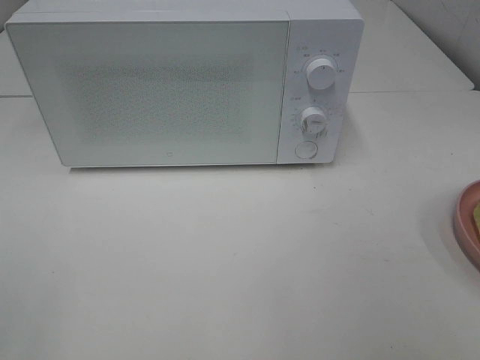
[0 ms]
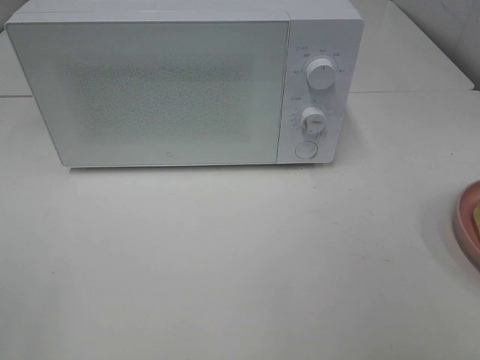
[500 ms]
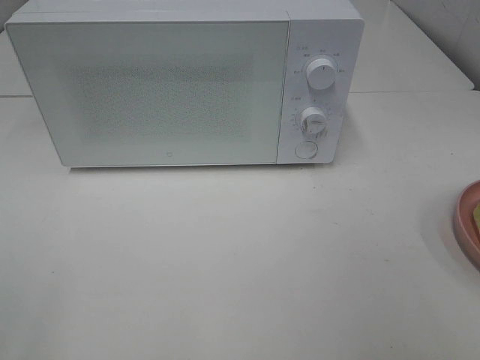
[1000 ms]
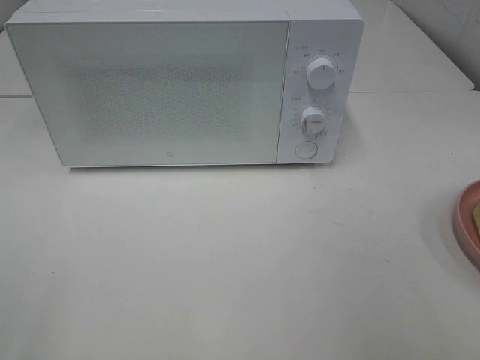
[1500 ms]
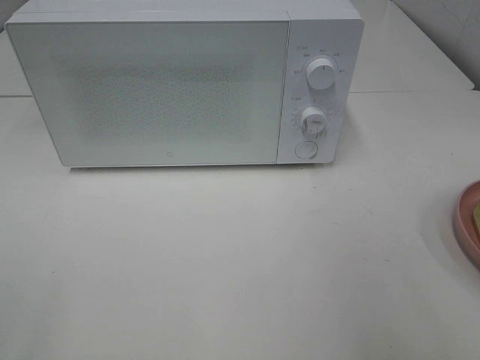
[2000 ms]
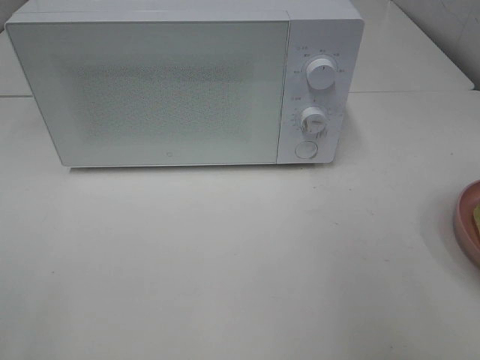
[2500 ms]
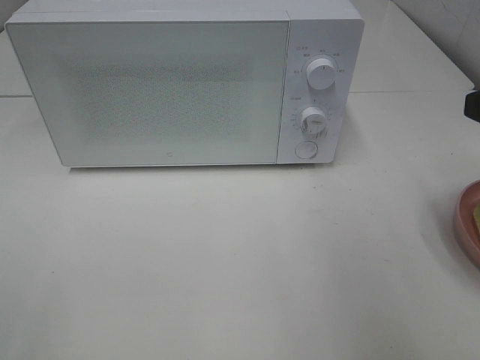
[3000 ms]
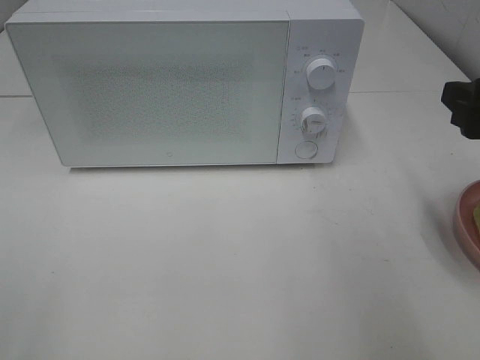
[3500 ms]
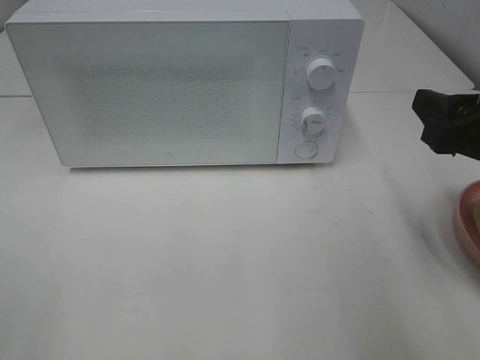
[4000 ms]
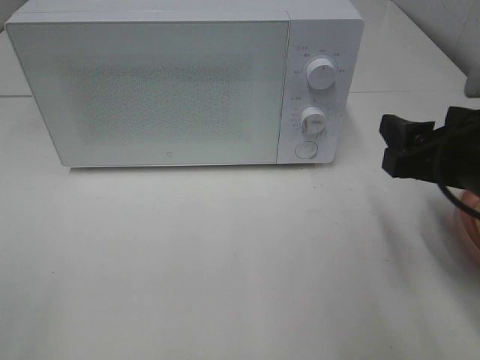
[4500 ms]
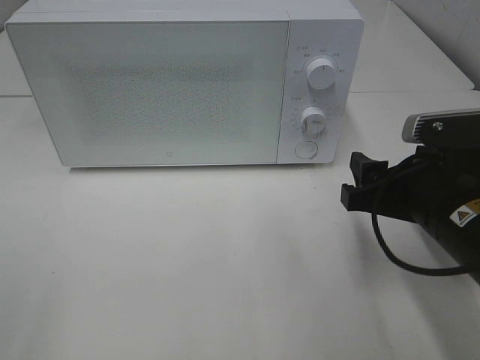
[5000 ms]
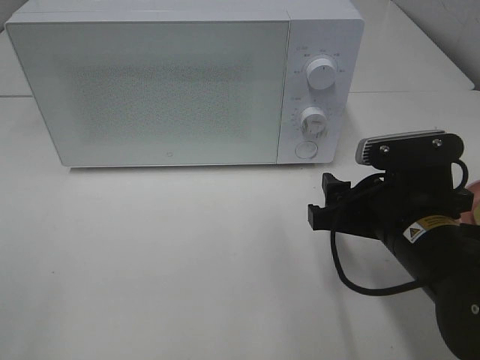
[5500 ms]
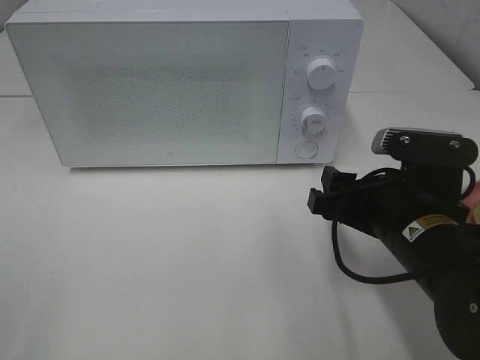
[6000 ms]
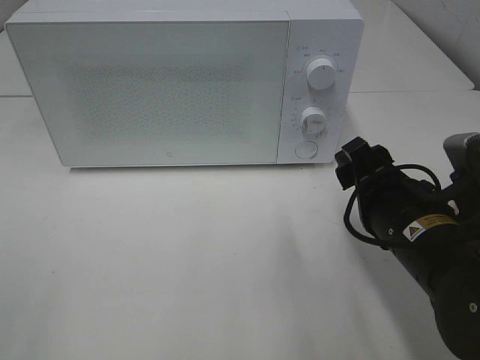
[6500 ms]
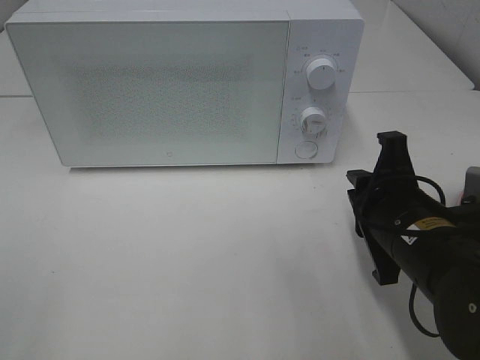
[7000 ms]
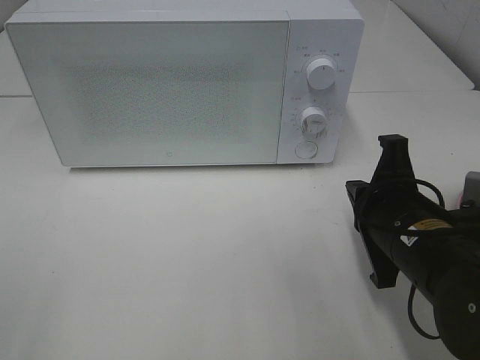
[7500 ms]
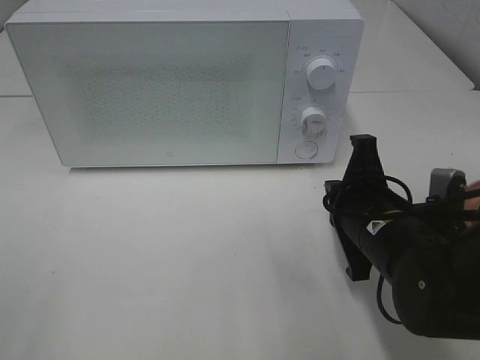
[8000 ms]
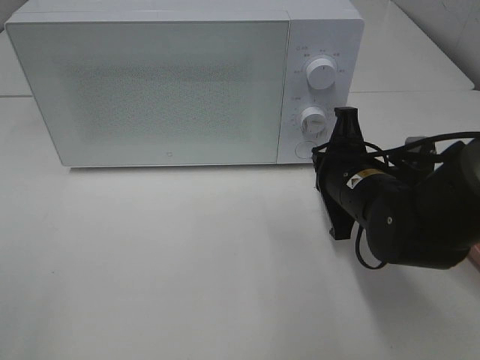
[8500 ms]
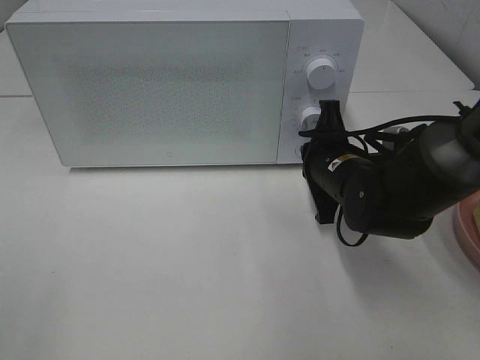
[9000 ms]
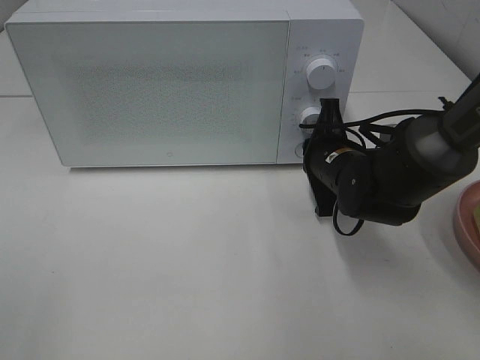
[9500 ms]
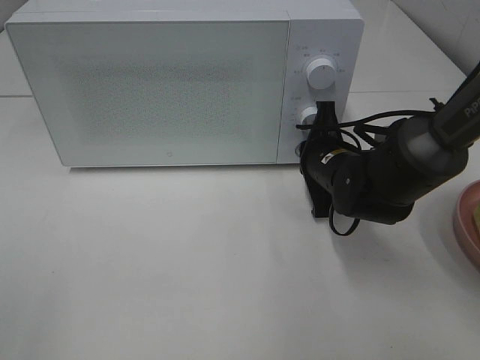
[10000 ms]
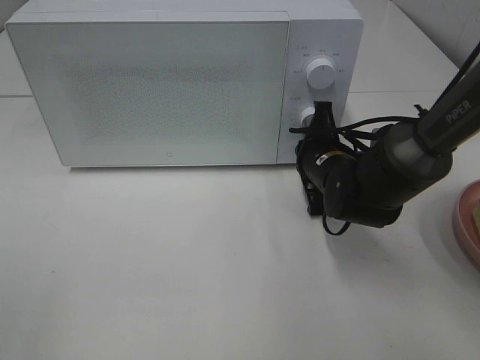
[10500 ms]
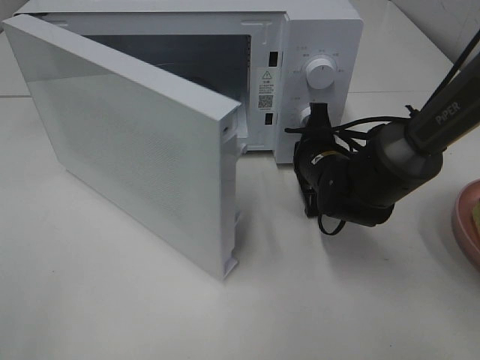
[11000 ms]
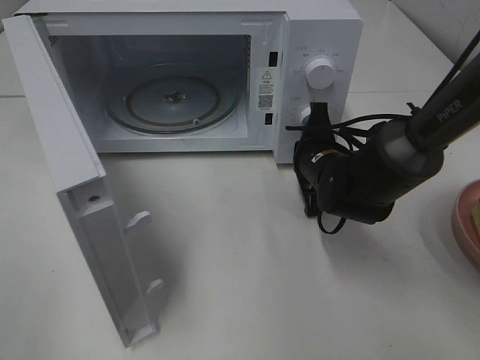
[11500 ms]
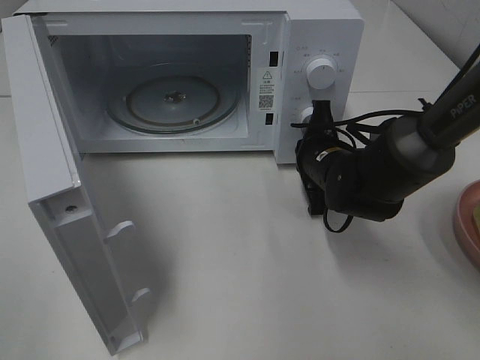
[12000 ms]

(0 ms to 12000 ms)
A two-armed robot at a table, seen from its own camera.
Task of the whole recording: Heat Sandwich.
2000 ms - 4000 ms: The right gripper is displaced forward and downward by approximately 10 cm.
4000 ms - 6000 ms: The right gripper shifts about 10 cm to the left and downward.
6000 ms - 8000 ms: The right gripper closes.
8000 ms - 10000 ms: The right gripper shifts some 15 cm forward.

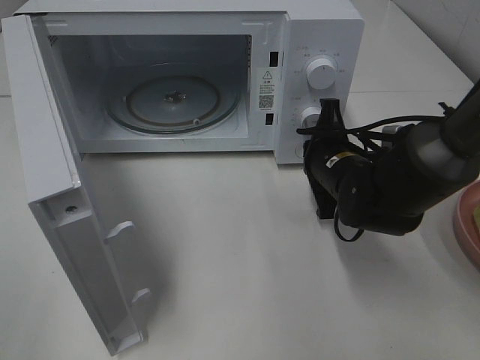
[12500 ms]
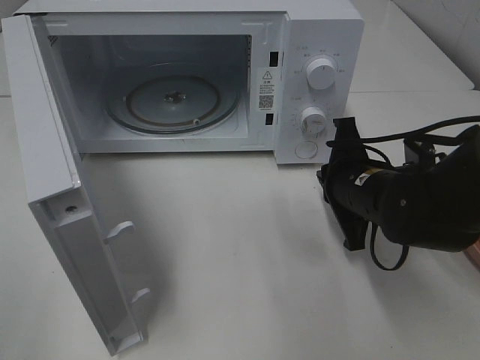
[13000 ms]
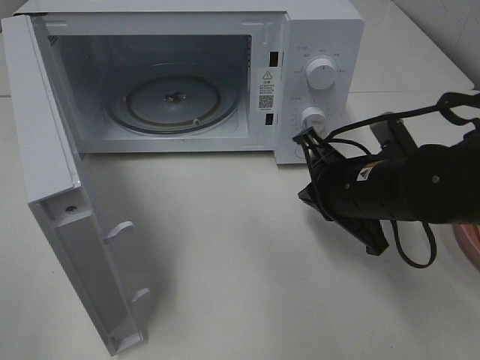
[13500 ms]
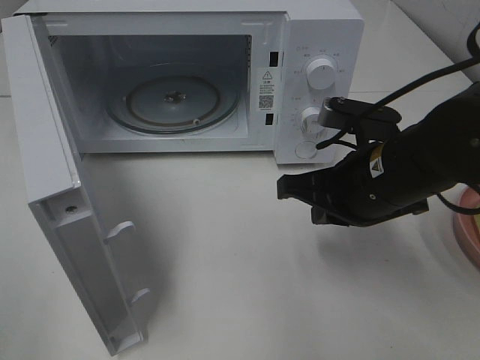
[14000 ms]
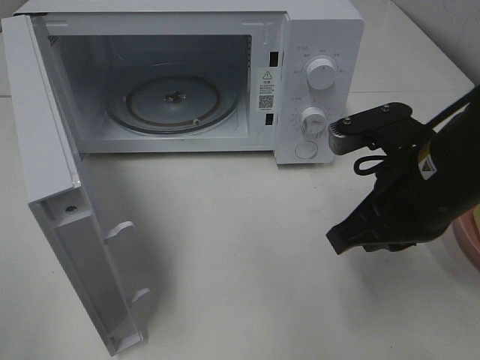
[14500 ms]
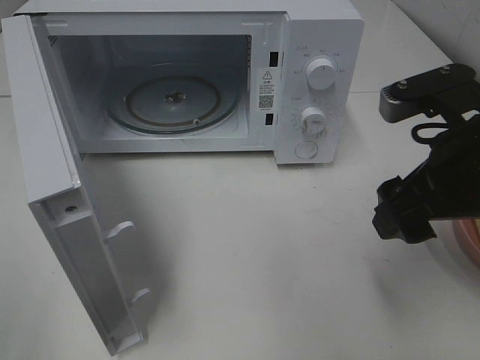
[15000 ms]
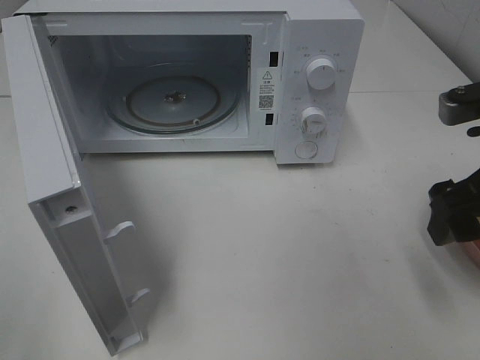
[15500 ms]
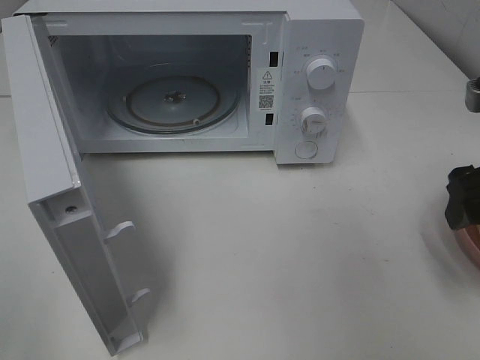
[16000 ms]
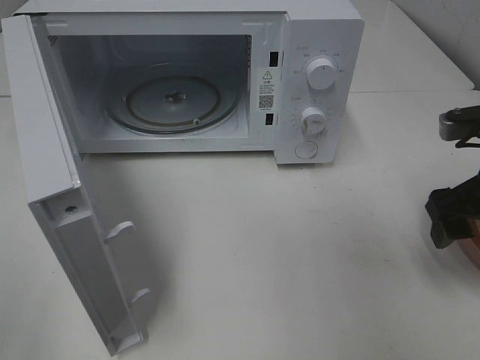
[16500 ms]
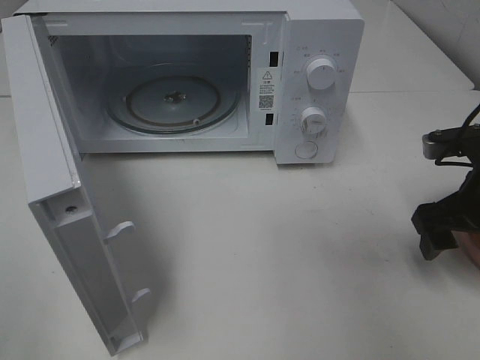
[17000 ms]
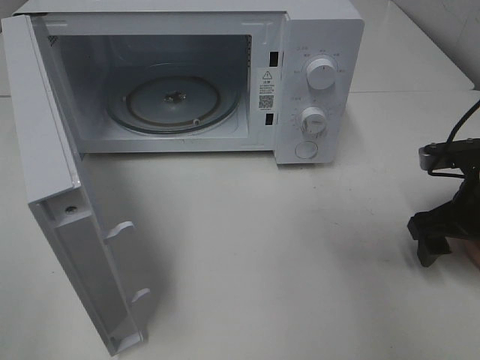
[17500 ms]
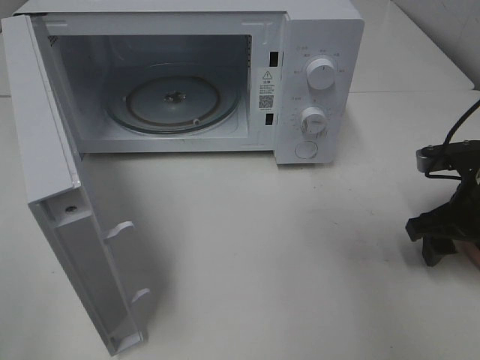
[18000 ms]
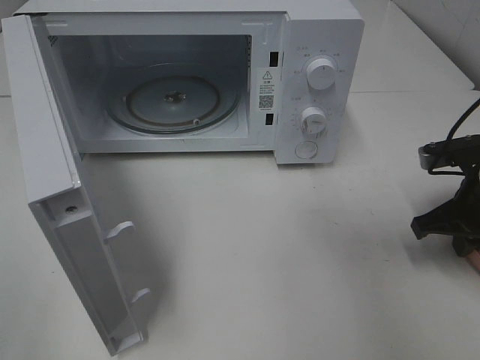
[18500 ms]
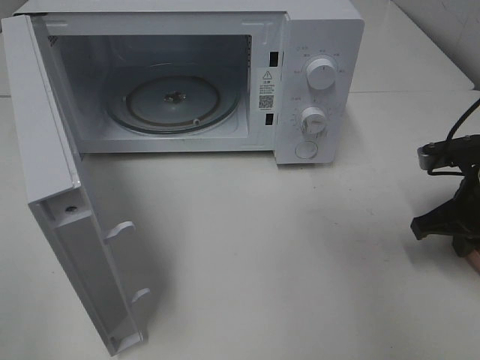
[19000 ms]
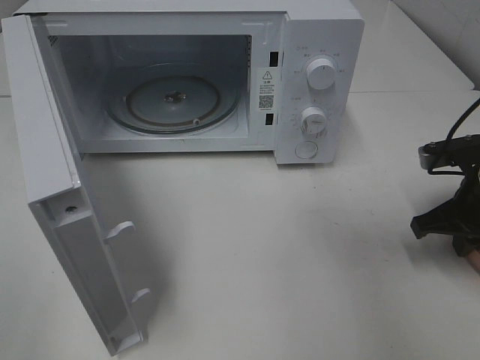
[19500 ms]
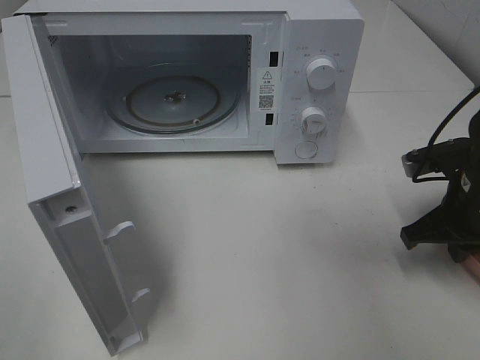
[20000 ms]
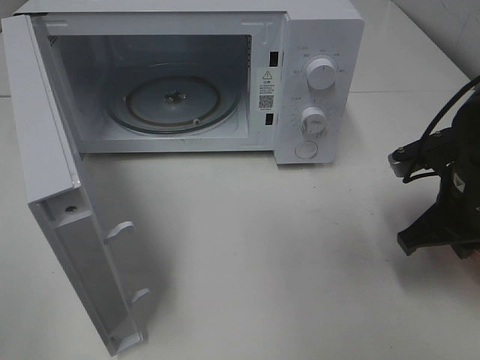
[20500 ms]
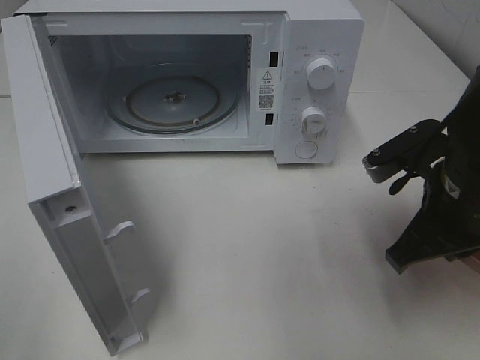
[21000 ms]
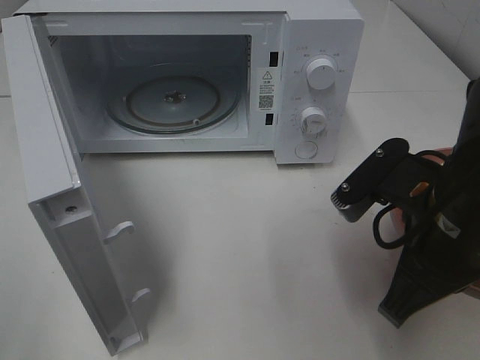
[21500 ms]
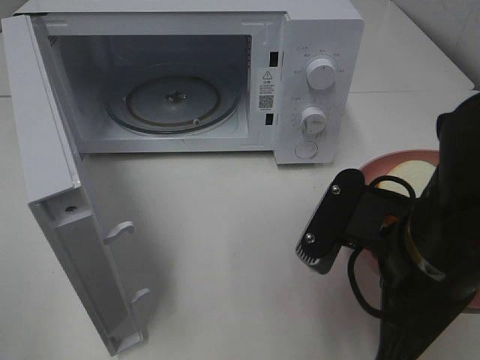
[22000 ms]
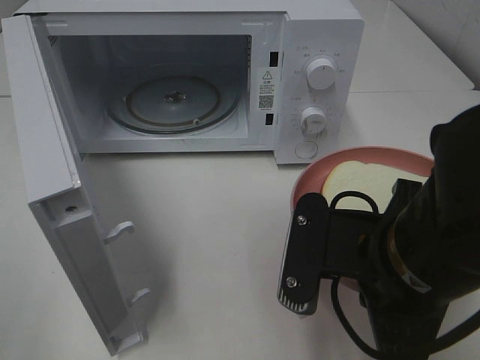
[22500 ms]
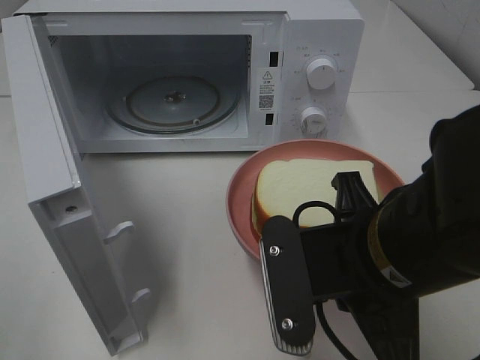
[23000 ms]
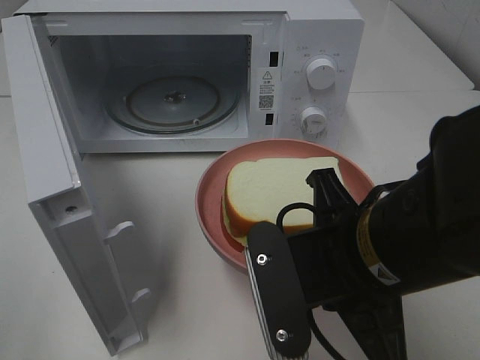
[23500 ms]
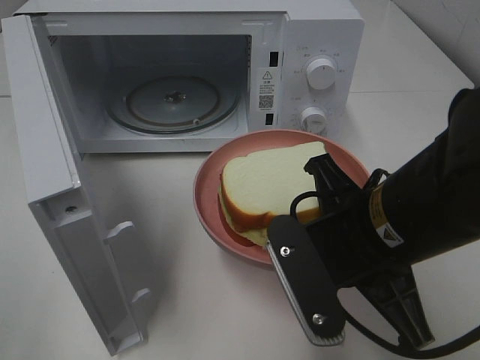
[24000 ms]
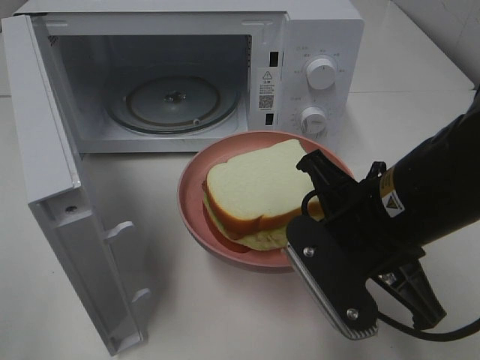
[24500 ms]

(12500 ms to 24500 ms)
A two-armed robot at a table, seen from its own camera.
Task of the whole recording: Heat Sandwich.
Step, 13000 ms - 18500 ms: Right hand: grab the plate with the sandwich.
12500 ms - 14500 ms: The right gripper is displaced backward and upward by about 15 cm.
14500 ms - 16500 ms: The right gripper moves to the right, roughly 10 cm, and opens up.
16500 ms - 18500 ms: The right gripper heads downward, covering approximately 5 cm, and closes.
18500 ms - 20500 ms: The right gripper is displaced to the left by some 5 cm.
20500 ms - 22500 ms: The right gripper moves to the left and backward, approximately 15 cm.

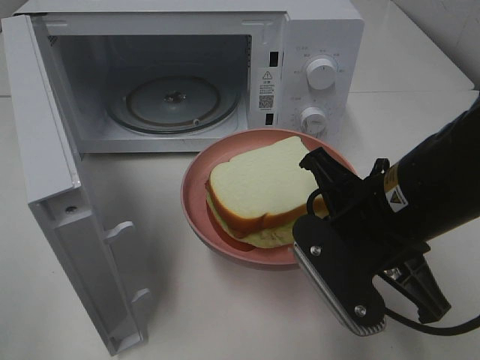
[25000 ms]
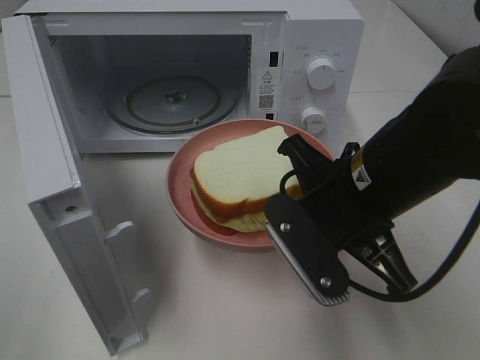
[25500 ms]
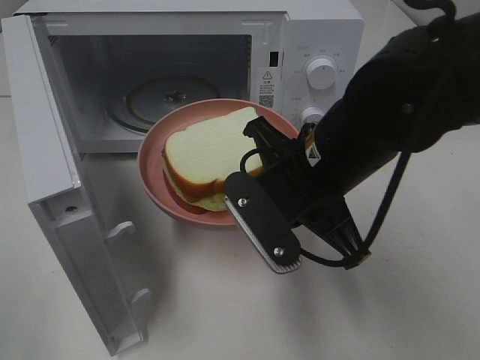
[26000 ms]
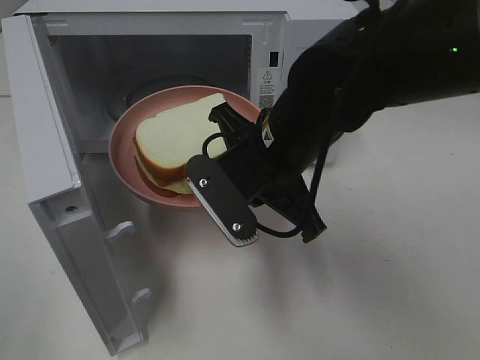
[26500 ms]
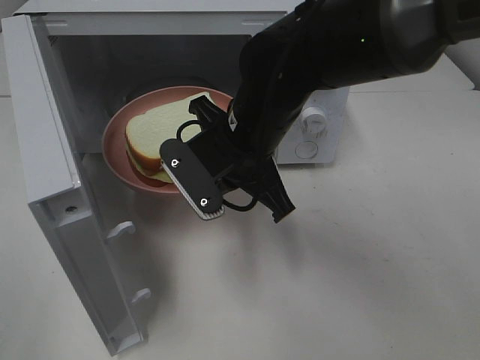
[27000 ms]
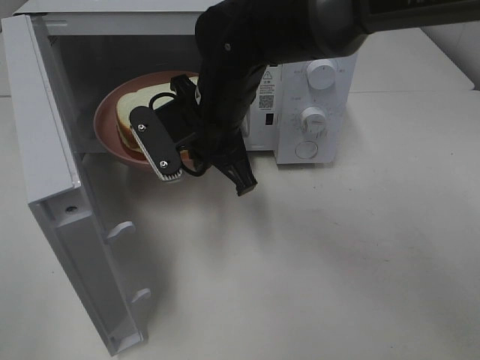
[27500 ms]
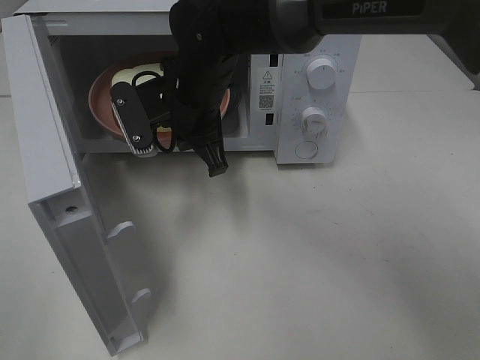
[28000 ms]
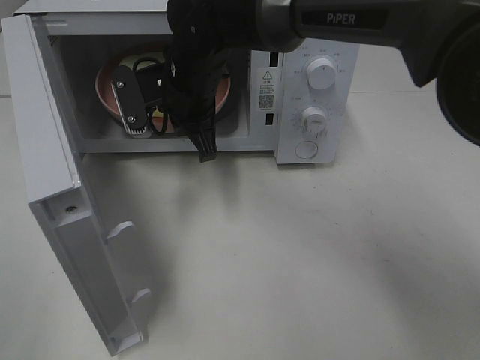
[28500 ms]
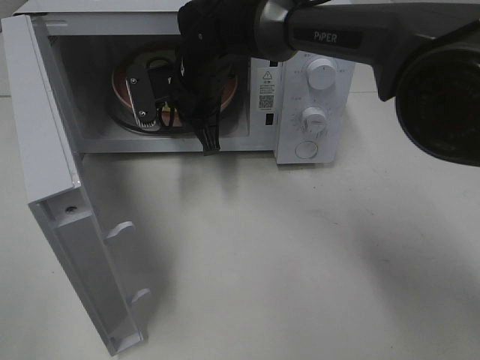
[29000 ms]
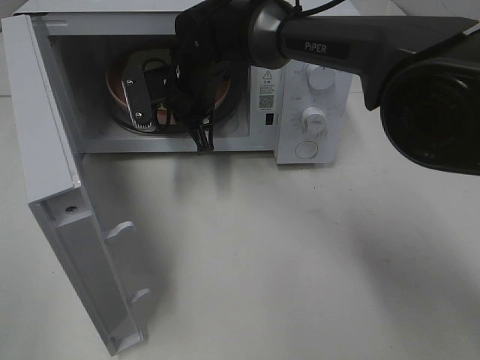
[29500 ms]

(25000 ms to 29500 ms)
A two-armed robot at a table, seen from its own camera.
Task of the whole recording: Heat Sandwich.
25000 ms - 27000 ms: The right gripper shifts approximately 15 cm to the left and forward.
27000 ms - 29500 ms: The right gripper travels forward and to the left by approximately 15 cm.
